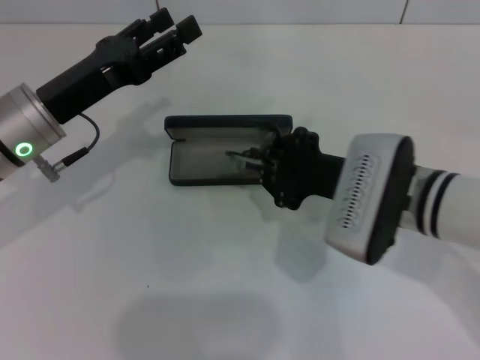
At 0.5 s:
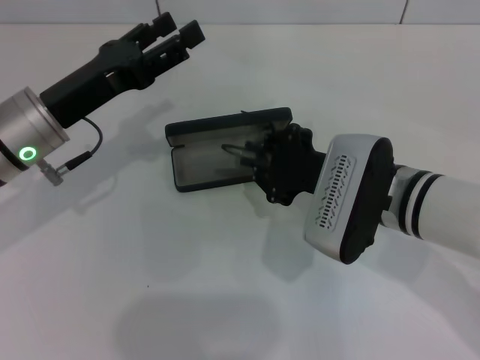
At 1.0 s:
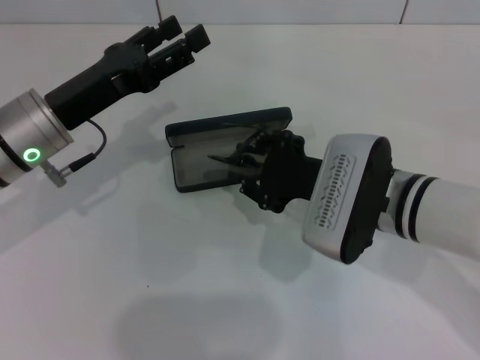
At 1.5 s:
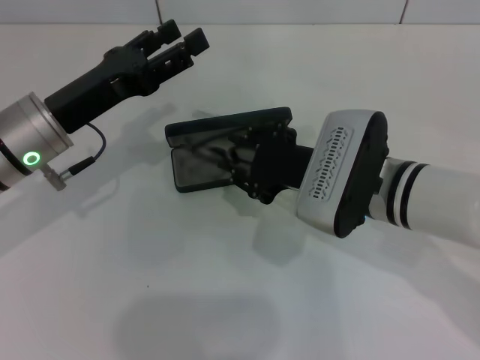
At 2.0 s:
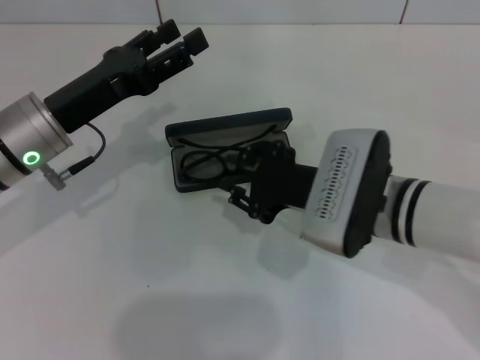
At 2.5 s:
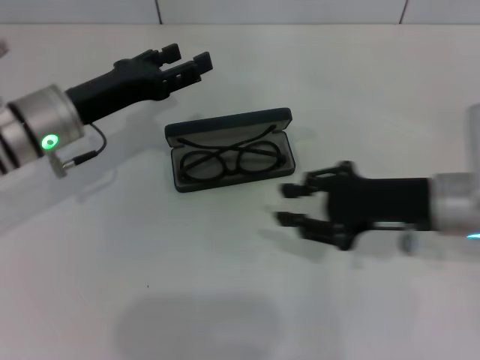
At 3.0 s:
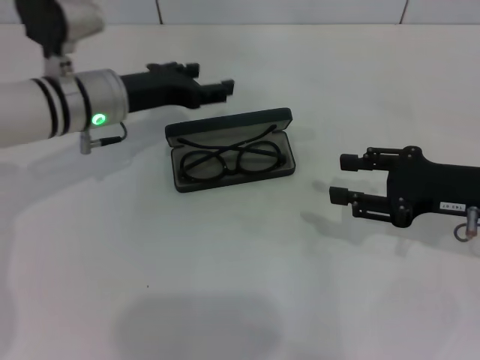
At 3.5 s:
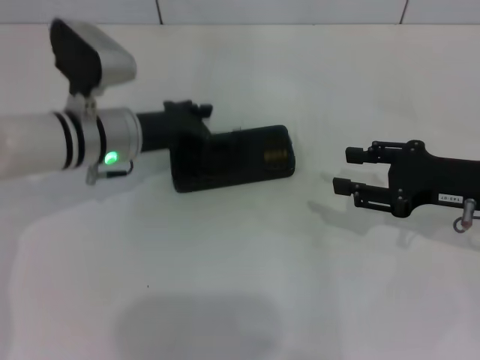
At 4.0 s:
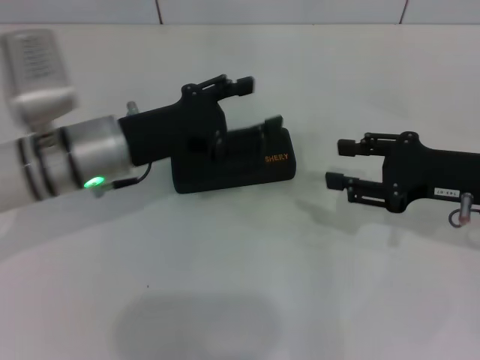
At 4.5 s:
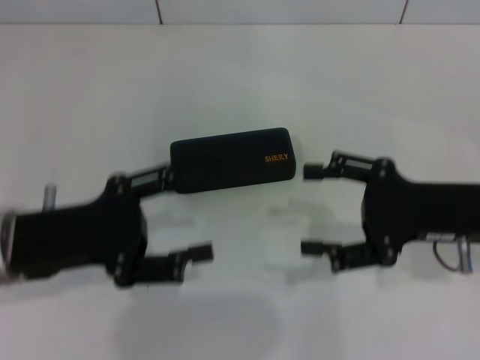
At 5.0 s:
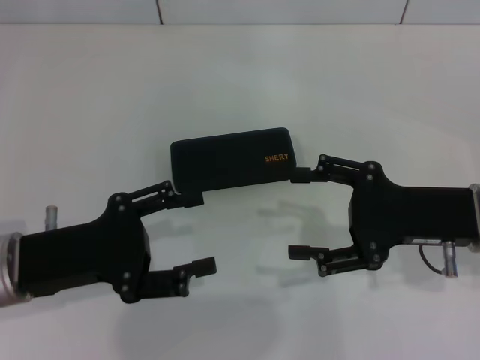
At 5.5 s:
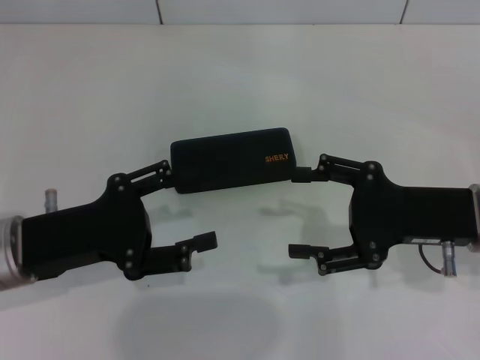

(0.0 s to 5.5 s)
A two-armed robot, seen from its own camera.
Step, 0.0 s - 1.5 s: Put the glasses into the case with your right hand.
Step, 2.0 s - 3.5 s: Close the glasses case with your left hand.
0.0 s - 2.0 s: The grippers make only small movements.
2.0 s - 3.5 s: The right gripper shifts approximately 15 cm to the right. Meanwhile the left gripper heads forward, covering roughly 5 cm.
3.5 s - 5.5 s: The left gripper travels backward and to the left by roughly 15 cm; the right gripper moves some 5 cm, and opens its fingers.
